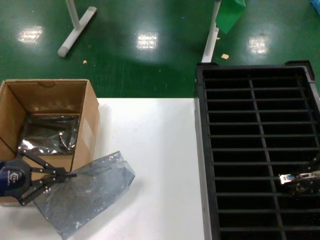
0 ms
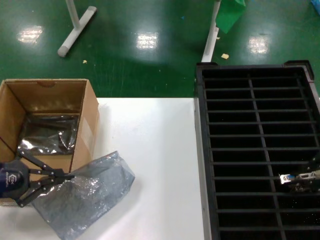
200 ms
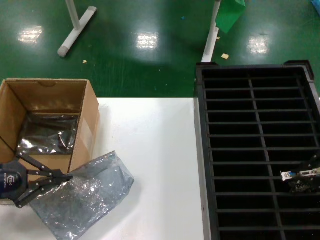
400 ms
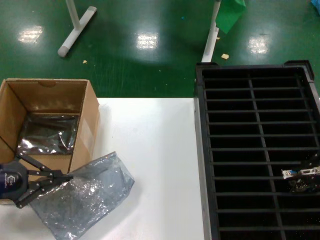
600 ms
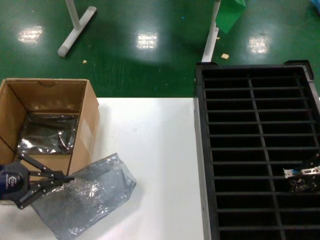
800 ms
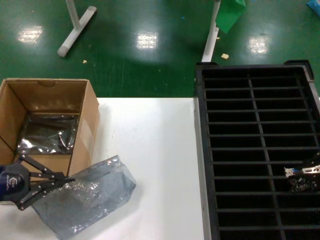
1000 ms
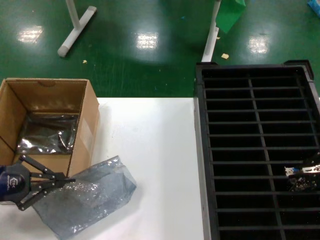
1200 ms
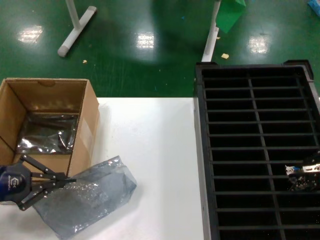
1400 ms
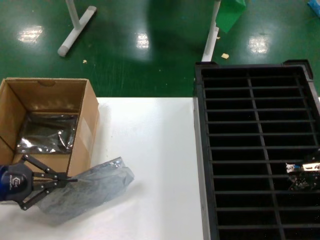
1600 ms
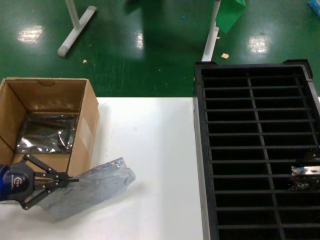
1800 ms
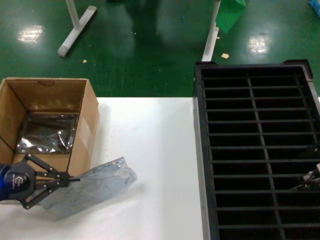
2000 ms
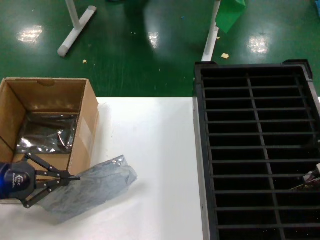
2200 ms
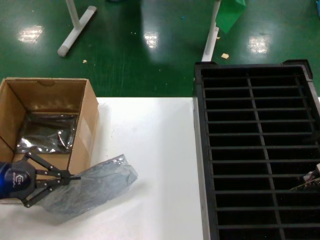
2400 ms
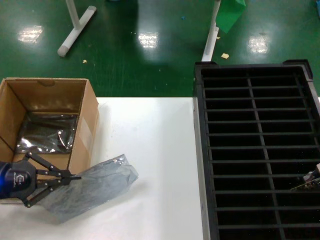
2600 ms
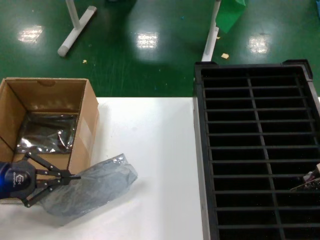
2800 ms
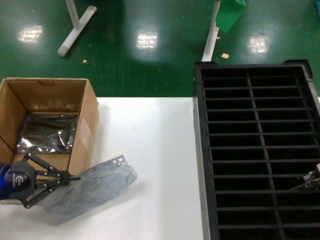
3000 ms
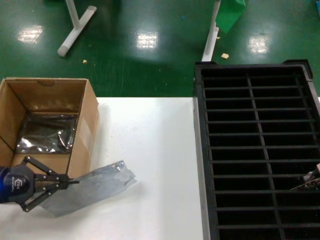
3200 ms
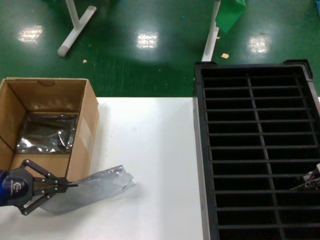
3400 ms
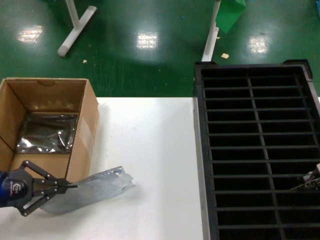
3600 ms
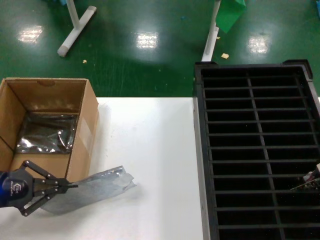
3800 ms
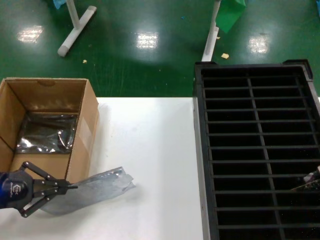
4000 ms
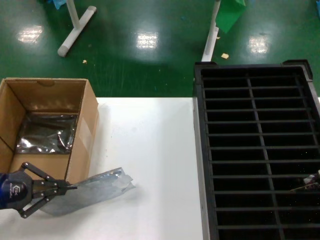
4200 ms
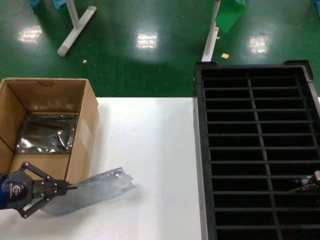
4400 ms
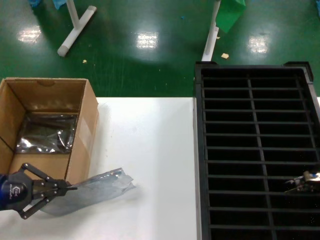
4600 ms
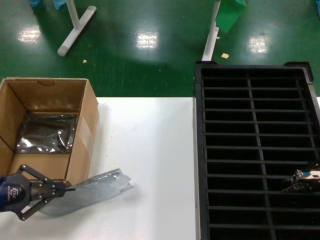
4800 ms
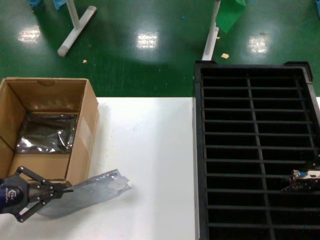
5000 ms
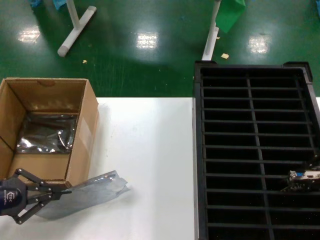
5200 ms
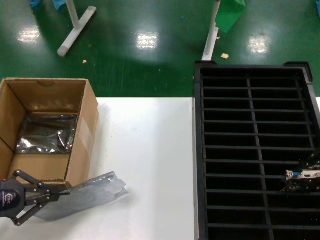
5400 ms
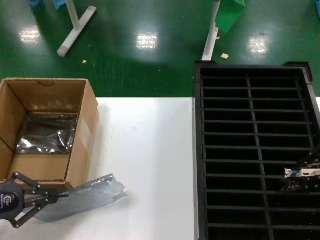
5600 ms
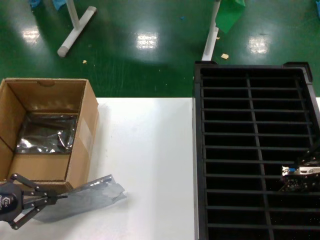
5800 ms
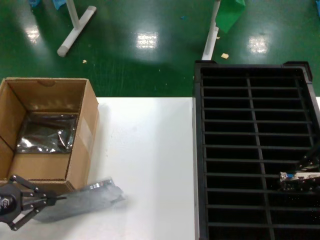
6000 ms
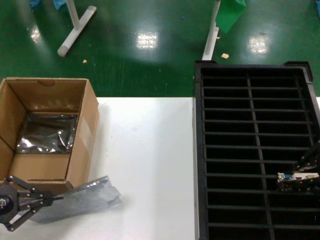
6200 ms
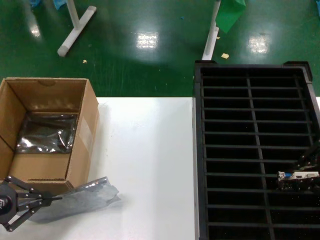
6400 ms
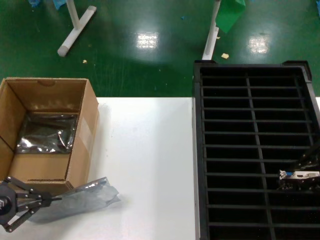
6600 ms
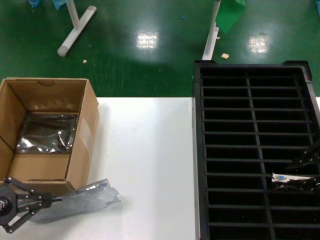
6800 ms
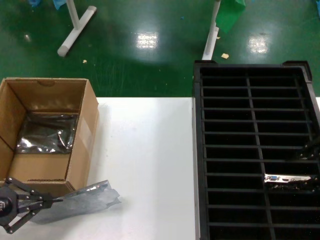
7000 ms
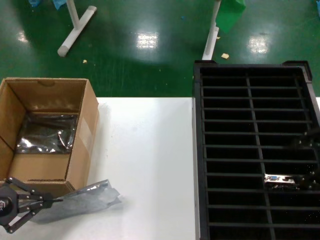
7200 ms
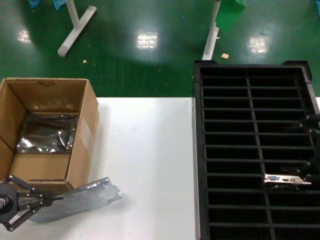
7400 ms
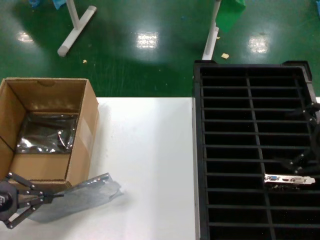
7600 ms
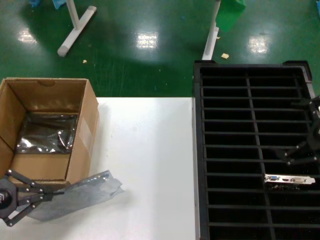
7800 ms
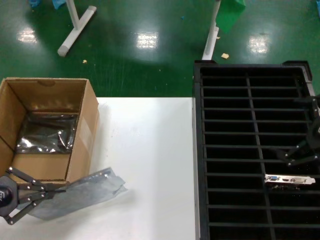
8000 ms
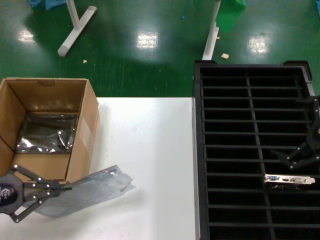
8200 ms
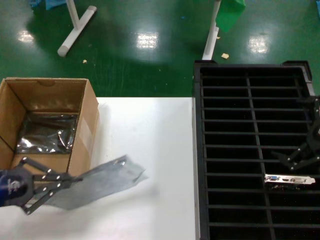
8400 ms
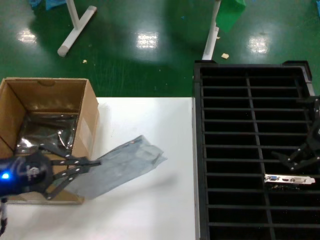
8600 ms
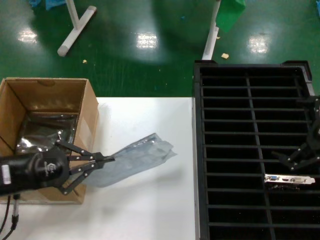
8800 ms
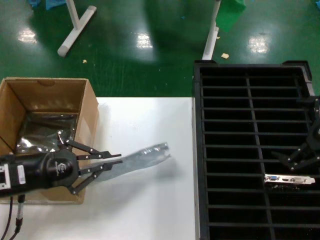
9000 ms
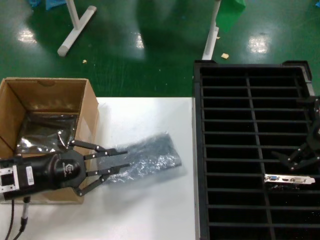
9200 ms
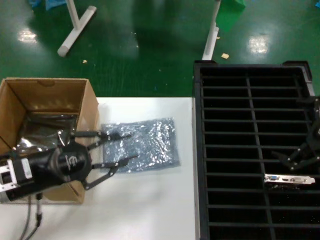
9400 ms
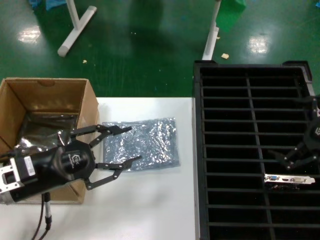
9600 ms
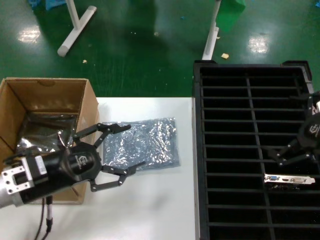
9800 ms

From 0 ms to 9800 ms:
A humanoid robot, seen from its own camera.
Task of the whole recording: take out graphics card from box remove packaging put into black container.
Step, from 0 ms to 7200 ms: Place the hard disk in the hard disk enclosure.
Step, from 7400 ms to 9400 ms: Place the down the bag.
From 0 ms to 4200 ms: The hands make only small movements.
From 4200 ms to 5600 ms: The right hand shifts approximately 5 cm to the left.
From 5600 ms to 7000 ms: The hands move only a little.
From 8400 ms to 9800 ms: The left hand is displaced to the right by about 10 cm.

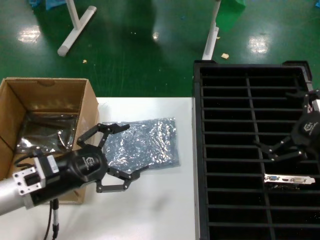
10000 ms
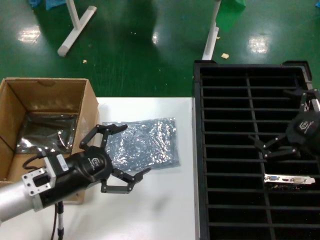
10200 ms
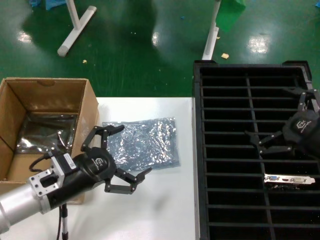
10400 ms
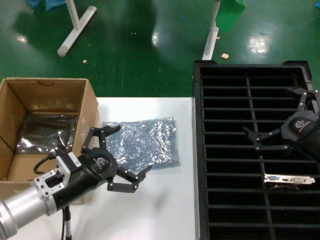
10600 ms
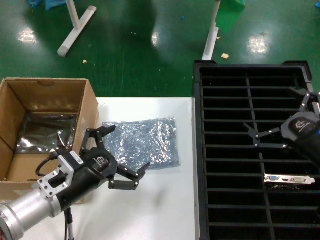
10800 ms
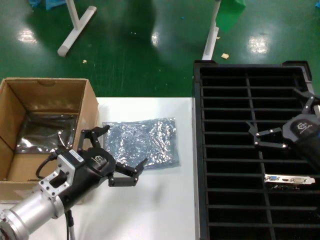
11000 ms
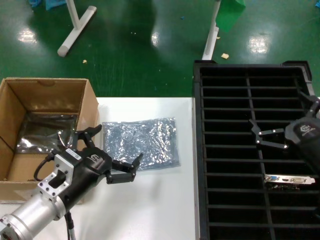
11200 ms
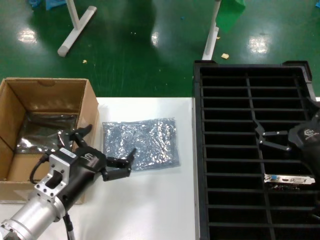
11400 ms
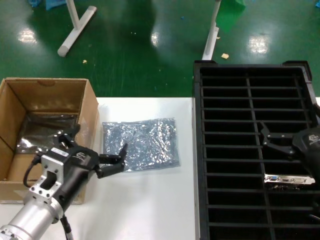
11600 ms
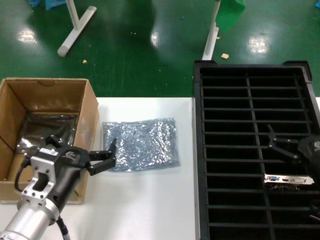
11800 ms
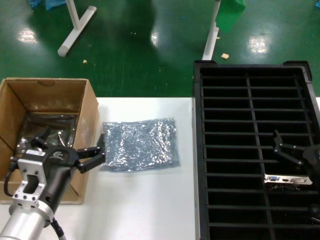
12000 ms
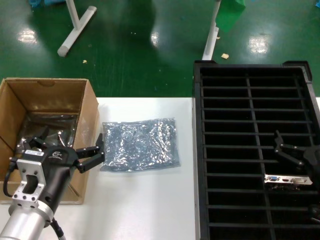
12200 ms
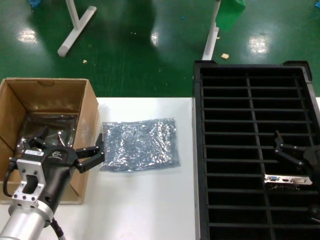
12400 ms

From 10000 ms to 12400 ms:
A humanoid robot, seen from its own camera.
Task of the whole recording: take out graphics card from box remove packaging put into black container.
From 10000 ms to 11200 ms: The right hand is displaced downward by some 10 cm; the left hand heads to the right, covering approximately 5 cm.
From 11200 ms to 12400 ms: The right hand shifts roughly 5 cm downward.

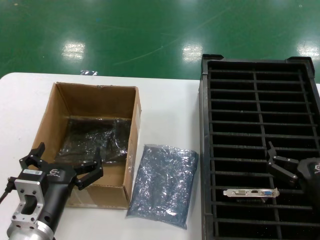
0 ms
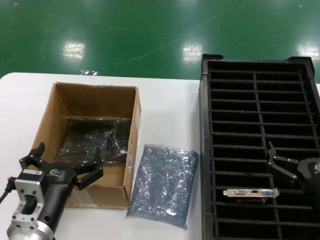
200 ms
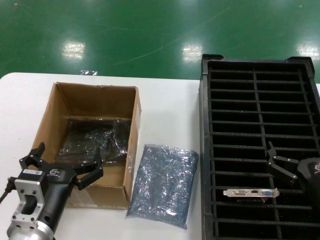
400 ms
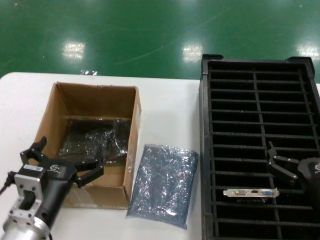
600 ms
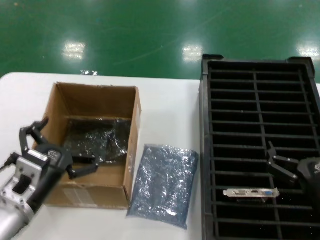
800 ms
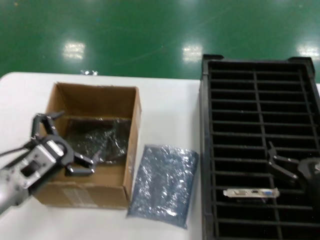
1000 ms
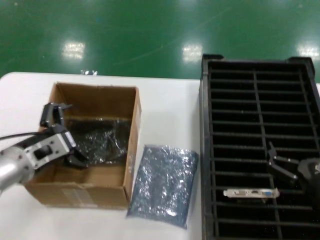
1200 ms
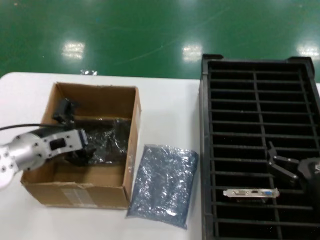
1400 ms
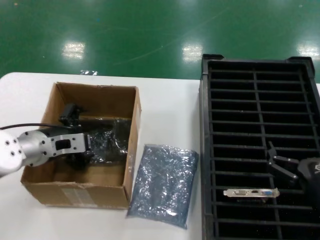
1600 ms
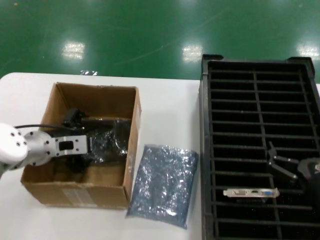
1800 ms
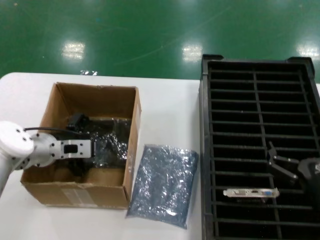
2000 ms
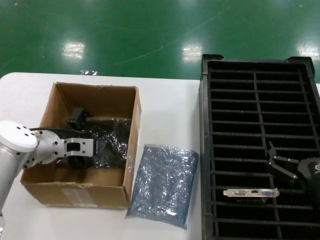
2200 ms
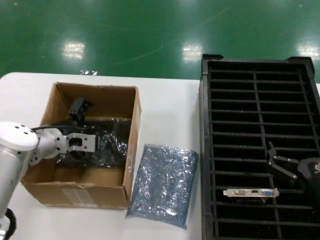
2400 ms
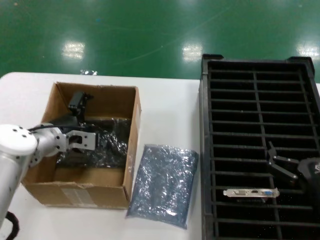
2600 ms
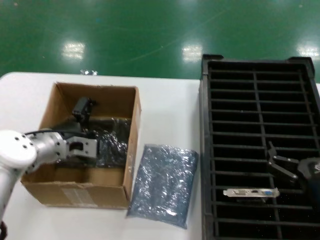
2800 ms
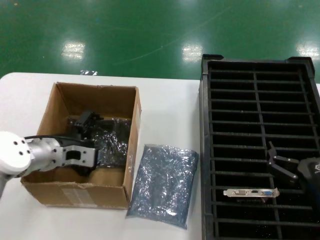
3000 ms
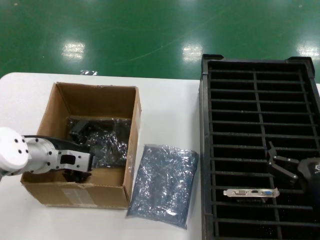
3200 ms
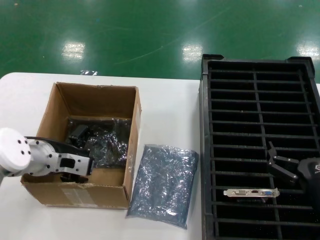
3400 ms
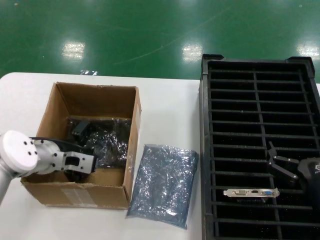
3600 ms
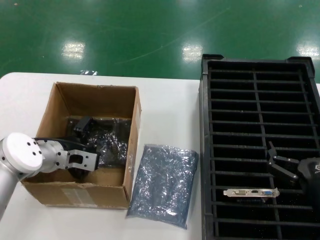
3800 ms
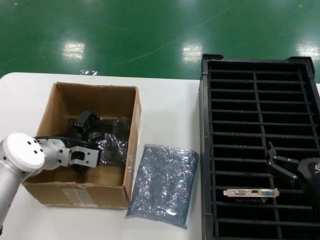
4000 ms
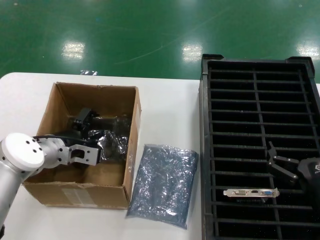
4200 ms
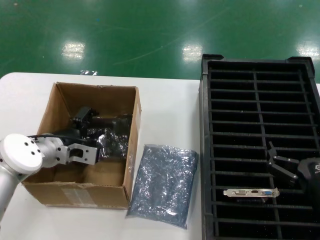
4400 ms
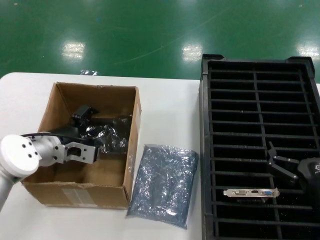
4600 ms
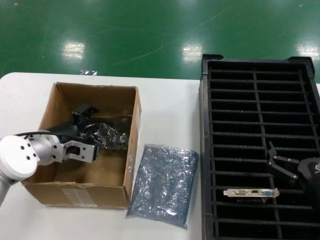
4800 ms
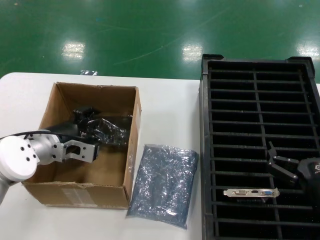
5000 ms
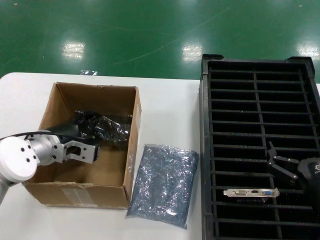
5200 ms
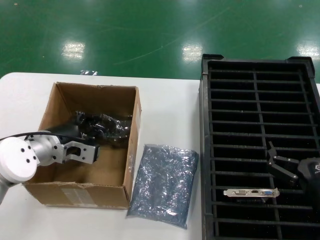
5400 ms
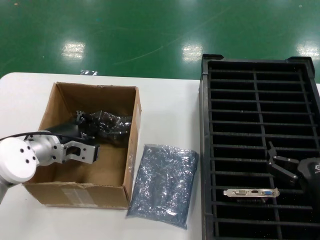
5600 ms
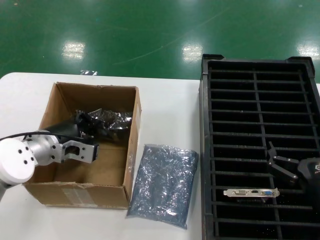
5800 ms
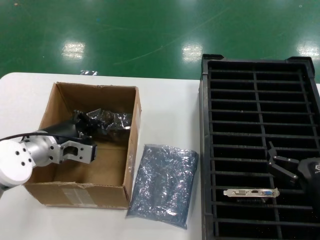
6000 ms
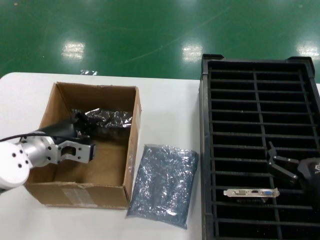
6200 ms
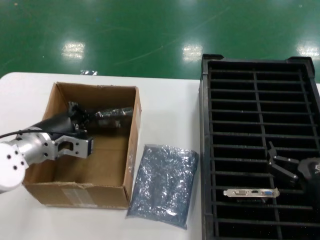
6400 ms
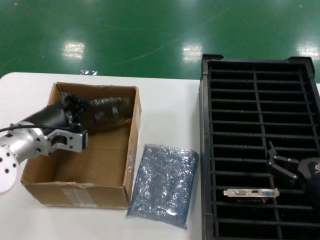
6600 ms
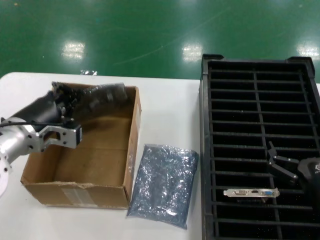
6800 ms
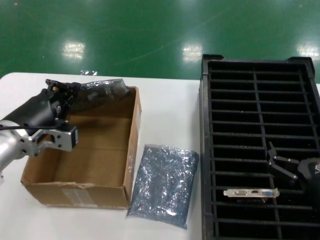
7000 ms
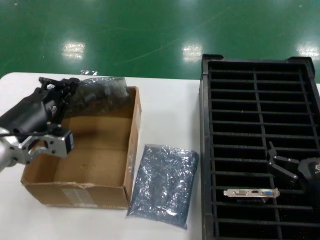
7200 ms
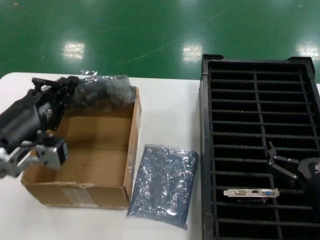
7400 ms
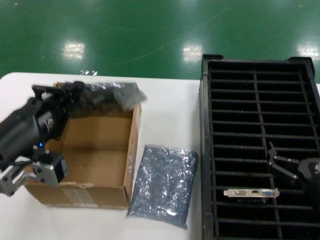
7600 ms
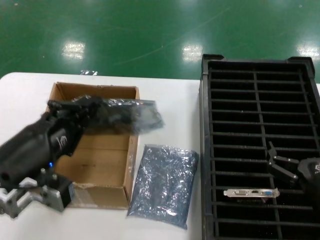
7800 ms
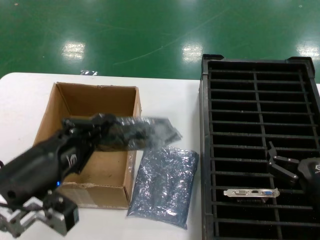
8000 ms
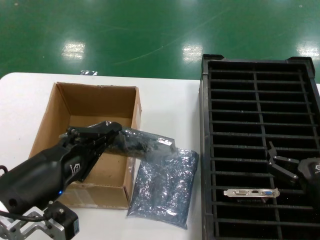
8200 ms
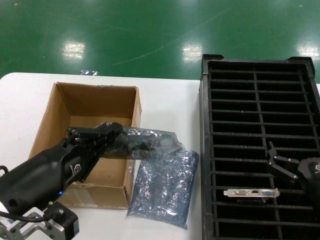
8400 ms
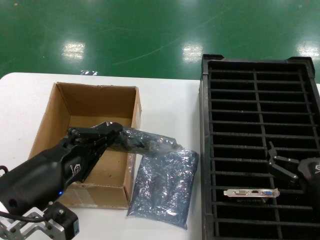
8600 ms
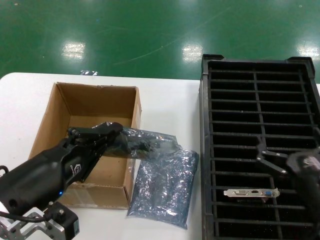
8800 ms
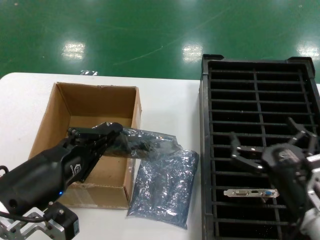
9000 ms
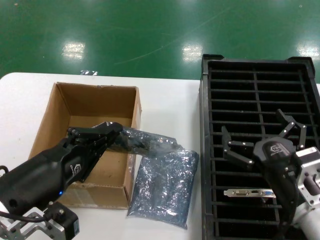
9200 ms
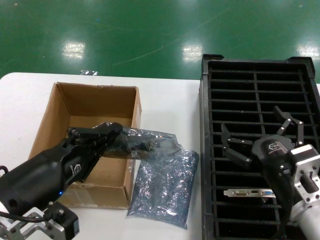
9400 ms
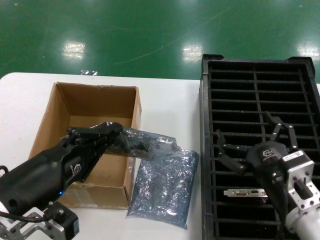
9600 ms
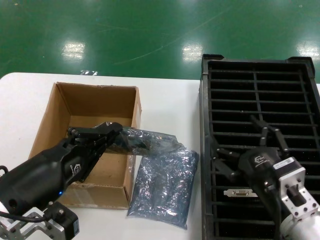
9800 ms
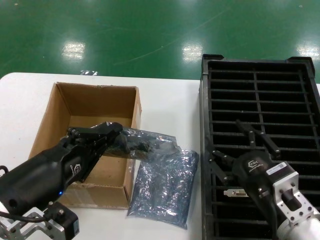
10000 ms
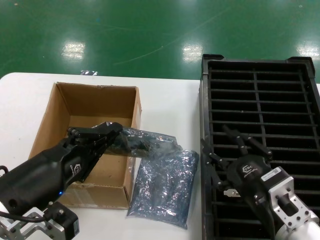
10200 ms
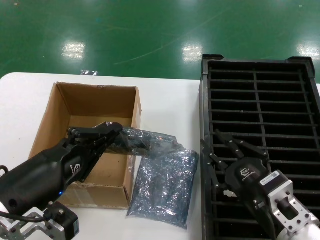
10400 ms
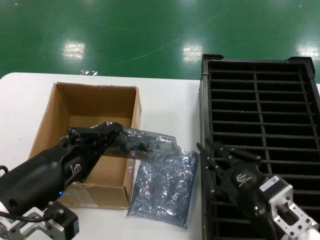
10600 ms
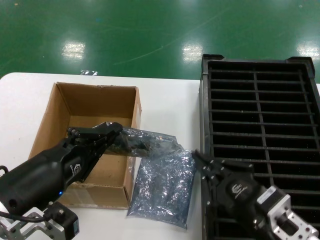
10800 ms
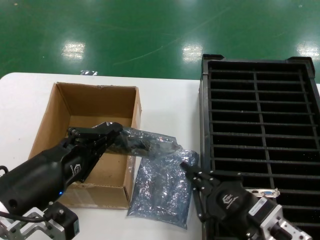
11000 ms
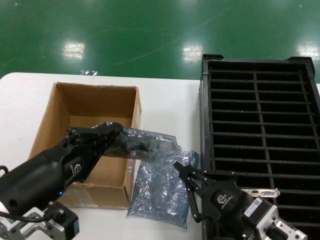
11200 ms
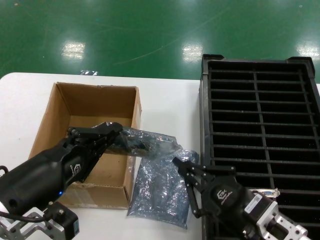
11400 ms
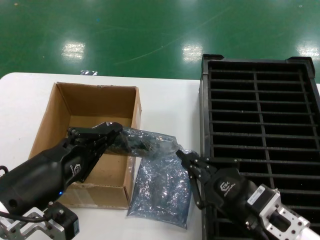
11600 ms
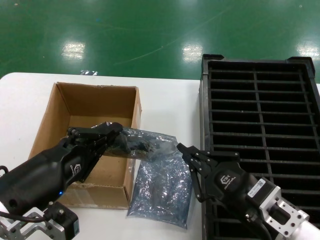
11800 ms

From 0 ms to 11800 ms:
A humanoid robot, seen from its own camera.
Task of the whole recording: take out graphics card from box remove packaging put into black container.
Step, from 0 ms to 5800 ms: Grasp the bag.
Step, from 6000 ms to 8600 ms: Lift the bag.
From 0 ms to 1400 ms: The left hand goes approximately 20 cm forward, upward and to the left.
From 3000 ms to 6000 ms: There are only small adjustments of the hands.
From 6000 ms to 7400 ms: The left hand travels backward and upward by some 15 cm.
From 7400 ms to 8800 ms: The left hand heads backward, covering roughly 10 cm.
From 8800 ms to 10400 ms: The right hand shifts some 5 cm to the left.
From 10400 ms to 11800 ms: The hands stay close to where they were, moving slightly.
